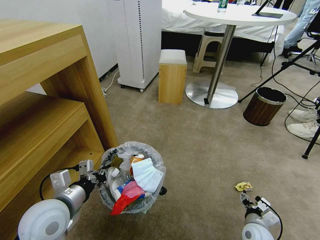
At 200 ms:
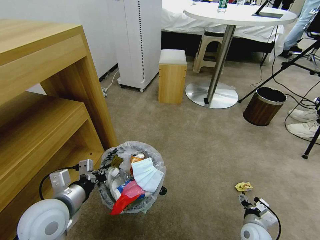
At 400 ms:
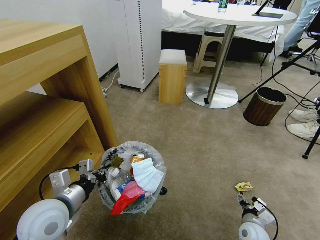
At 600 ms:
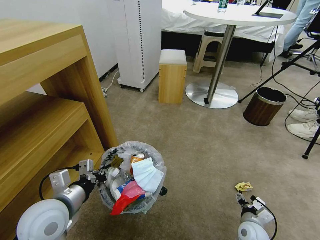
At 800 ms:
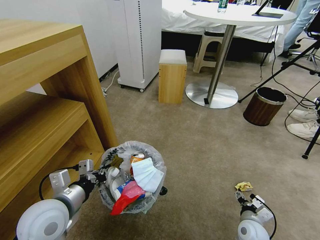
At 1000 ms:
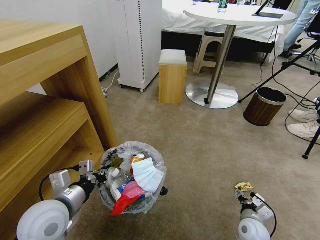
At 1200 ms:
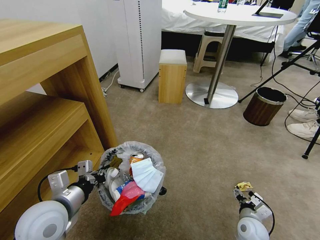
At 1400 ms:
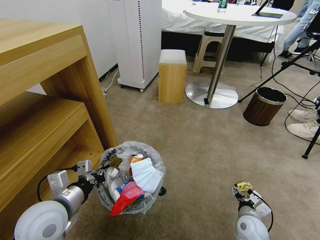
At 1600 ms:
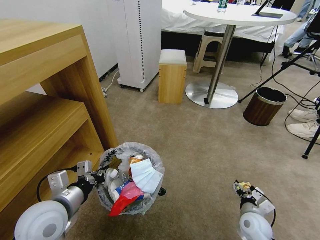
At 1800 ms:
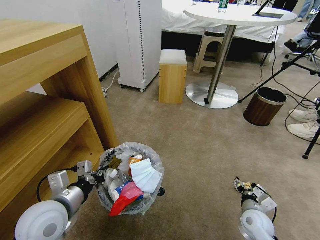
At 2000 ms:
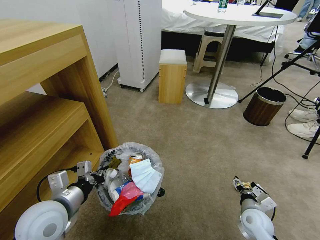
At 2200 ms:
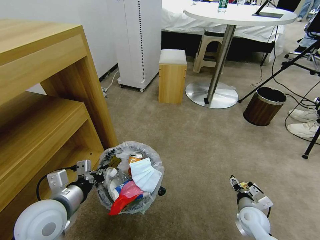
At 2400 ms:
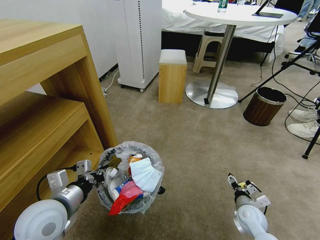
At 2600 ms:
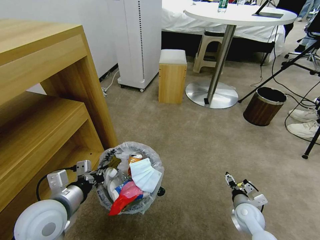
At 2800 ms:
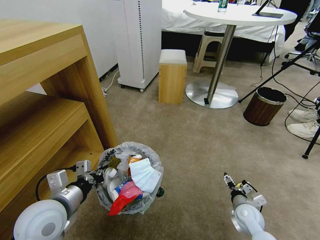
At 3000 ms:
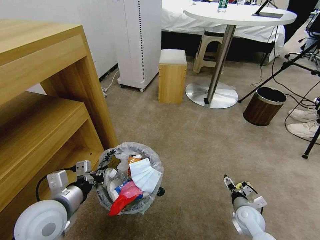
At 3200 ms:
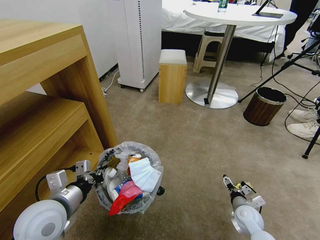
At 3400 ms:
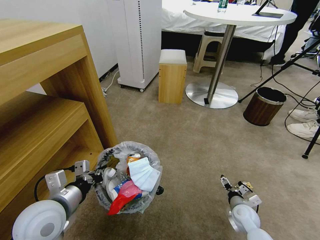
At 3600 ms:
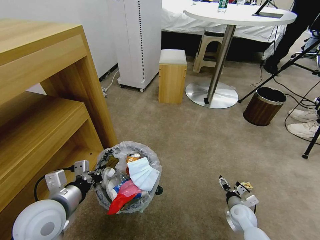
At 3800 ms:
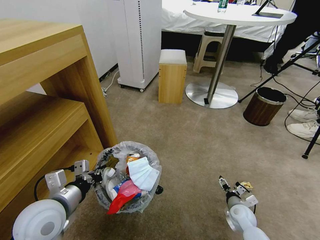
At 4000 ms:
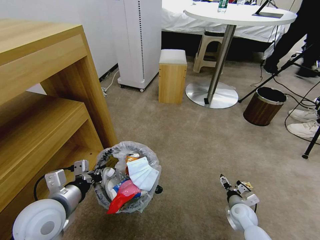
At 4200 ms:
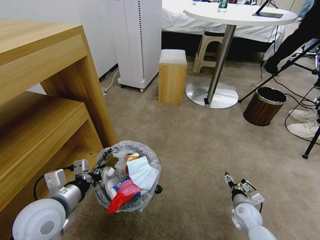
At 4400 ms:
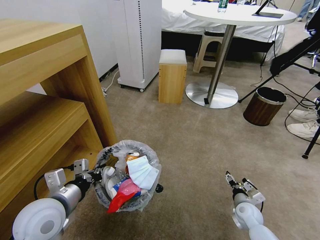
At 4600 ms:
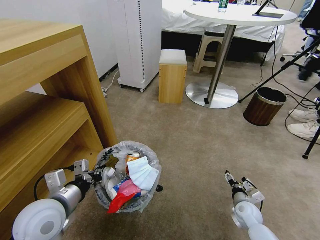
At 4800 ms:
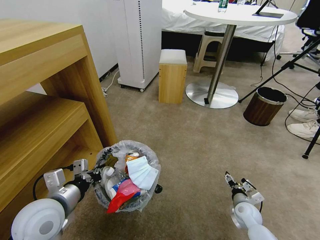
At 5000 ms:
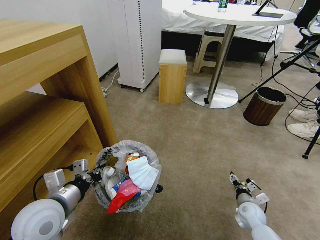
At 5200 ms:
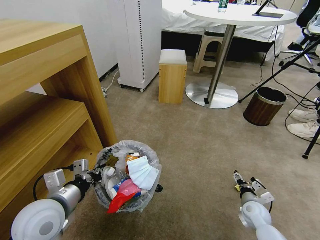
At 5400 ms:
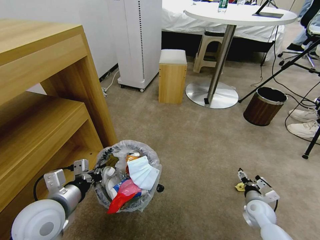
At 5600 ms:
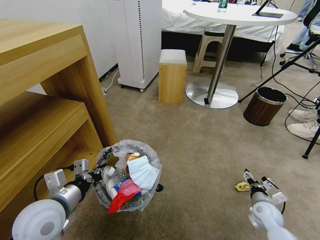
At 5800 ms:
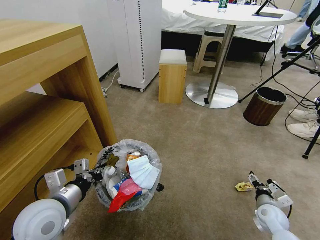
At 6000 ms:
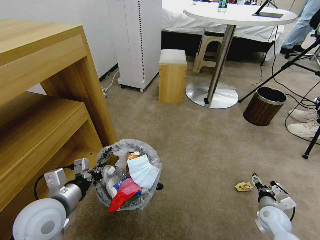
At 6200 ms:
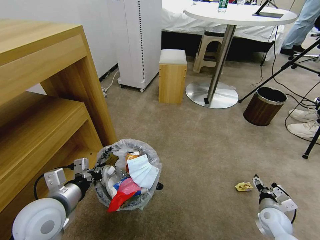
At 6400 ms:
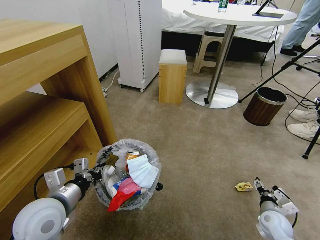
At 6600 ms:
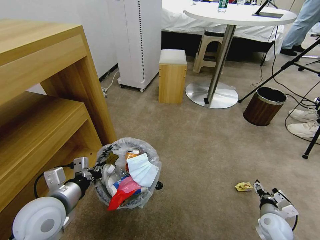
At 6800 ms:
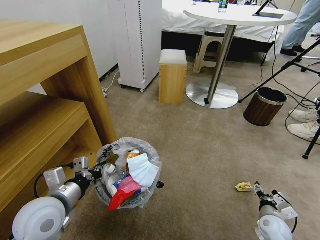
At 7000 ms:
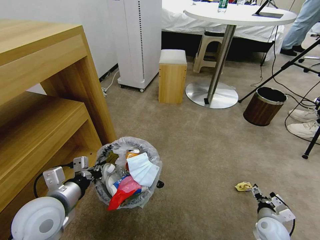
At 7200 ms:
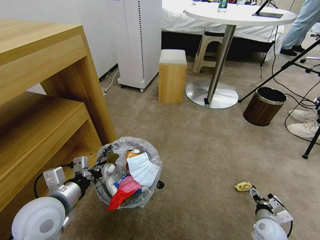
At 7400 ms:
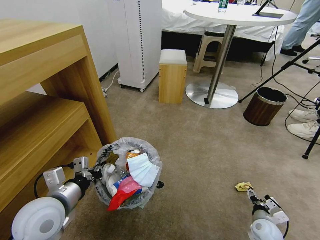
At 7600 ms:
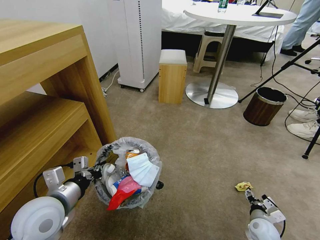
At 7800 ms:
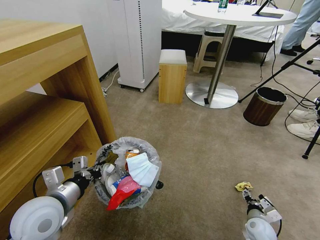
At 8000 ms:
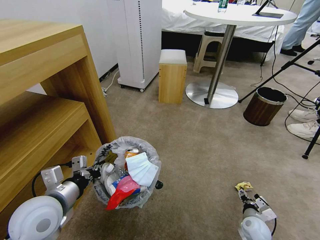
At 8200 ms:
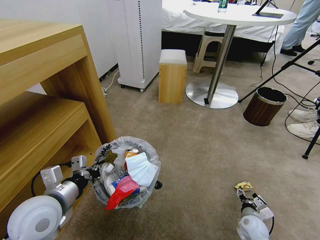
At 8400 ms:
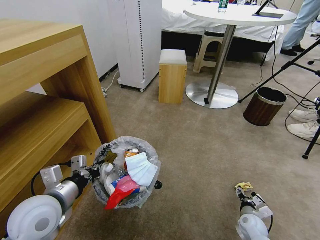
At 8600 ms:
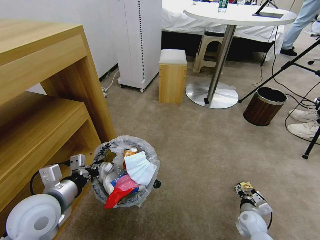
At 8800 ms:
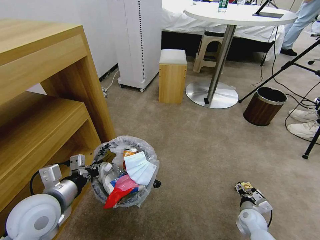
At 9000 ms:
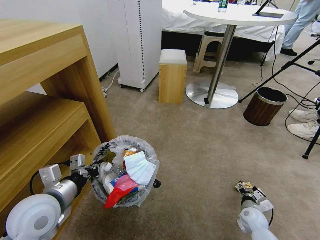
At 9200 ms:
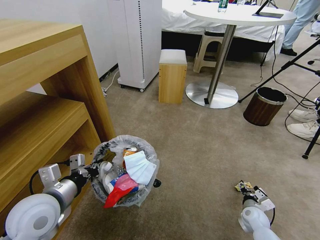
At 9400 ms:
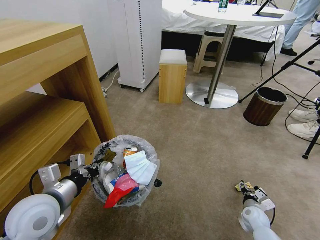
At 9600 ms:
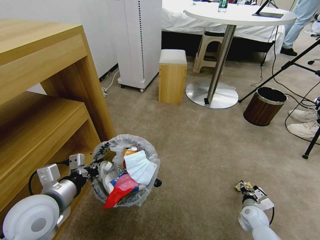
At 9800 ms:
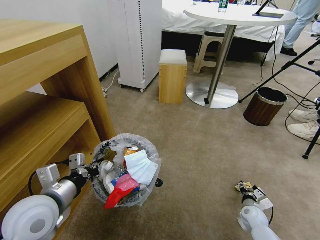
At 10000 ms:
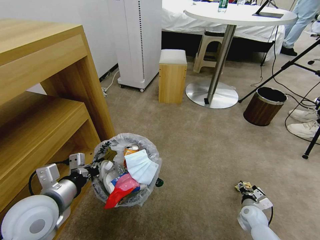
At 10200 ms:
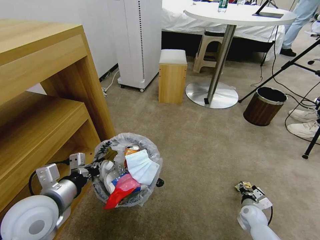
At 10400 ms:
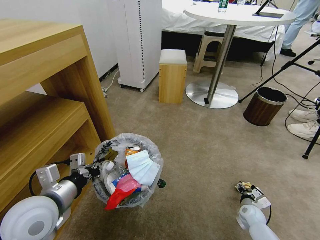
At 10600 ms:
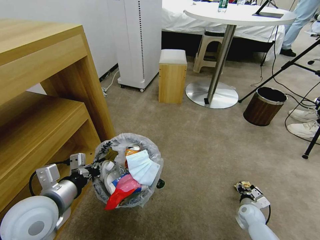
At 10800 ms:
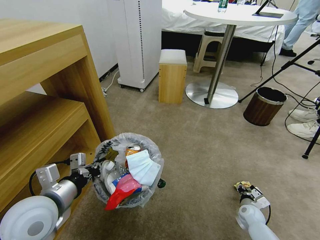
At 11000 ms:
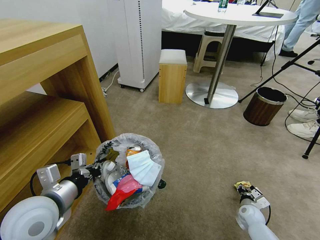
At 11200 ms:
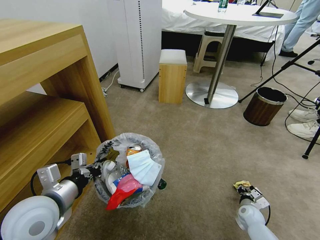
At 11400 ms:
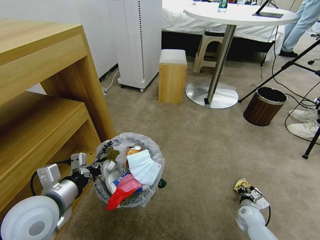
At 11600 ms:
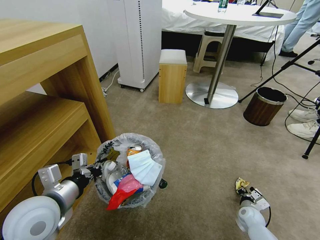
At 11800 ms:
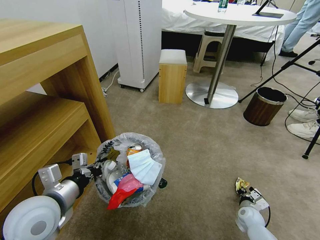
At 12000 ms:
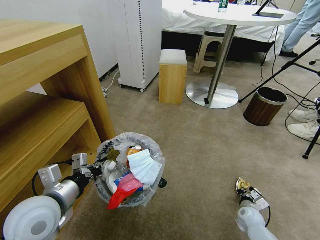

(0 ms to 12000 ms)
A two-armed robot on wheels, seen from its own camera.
Task of the whole recording: Pick up the trash bin and place the garbage on the floor into it.
0 ms - 1600 ms: The grippers move only a little.
1600 ms - 3000 ms: The grippers stay close to where they were, moving slightly.
3000 ms - 4400 ms: The grippers stay close to where they were, moving slightly.
4400 ms - 6000 ms: The right gripper heads to the right, covering approximately 5 cm.
6000 ms - 7600 ms: The right gripper ends up about 5 cm from where it was.
7600 ms - 9000 ms: The grippers stay close to where they were, moving slightly.
9000 ms - 10400 ms: The grippers make only small movements.
10400 ms - 12000 ms: The right gripper closes its fingers.

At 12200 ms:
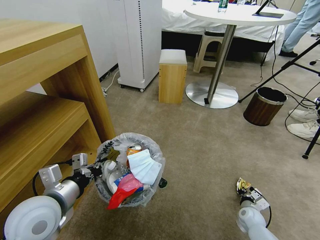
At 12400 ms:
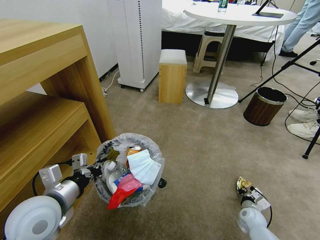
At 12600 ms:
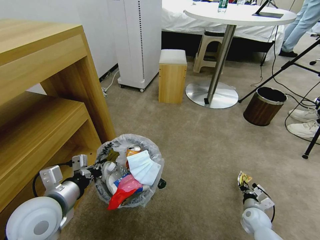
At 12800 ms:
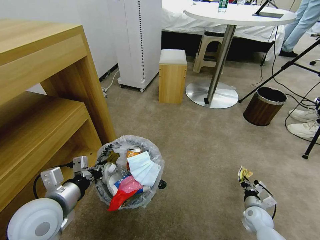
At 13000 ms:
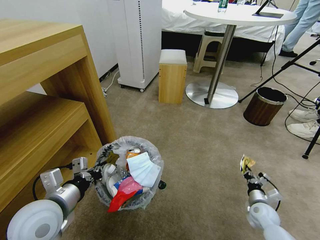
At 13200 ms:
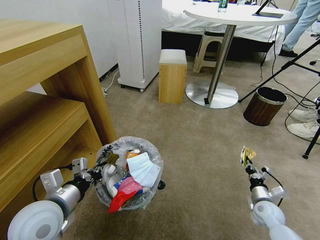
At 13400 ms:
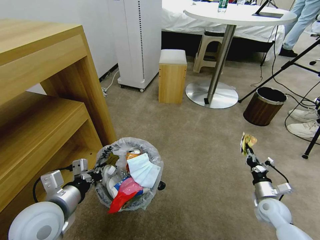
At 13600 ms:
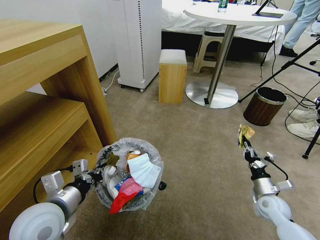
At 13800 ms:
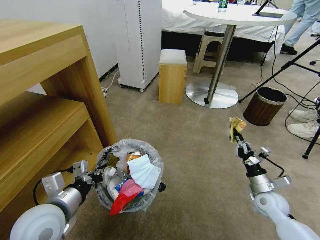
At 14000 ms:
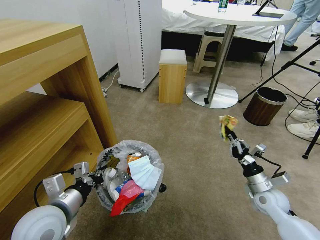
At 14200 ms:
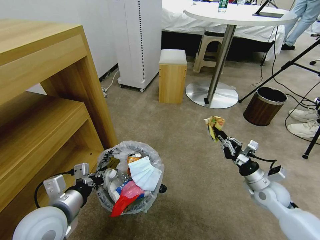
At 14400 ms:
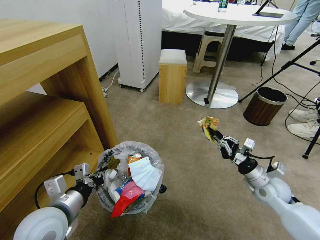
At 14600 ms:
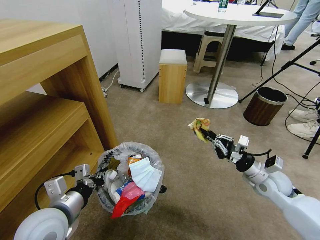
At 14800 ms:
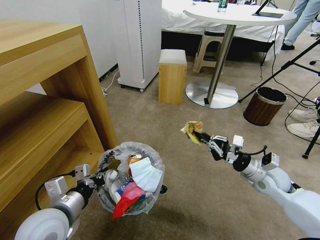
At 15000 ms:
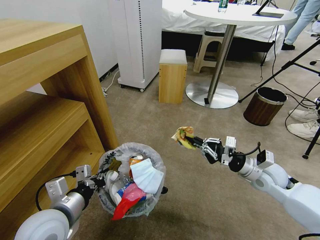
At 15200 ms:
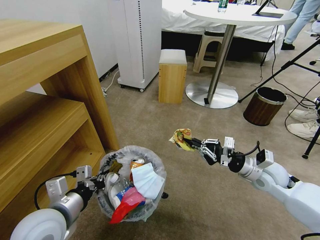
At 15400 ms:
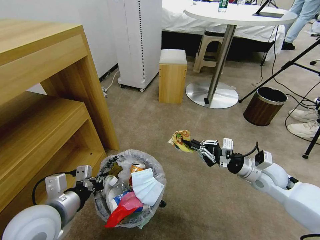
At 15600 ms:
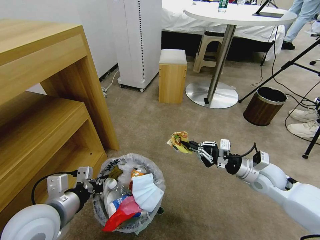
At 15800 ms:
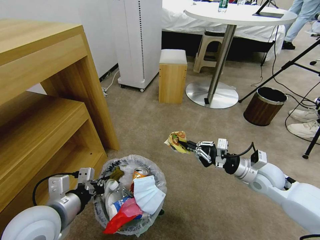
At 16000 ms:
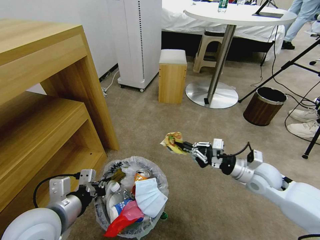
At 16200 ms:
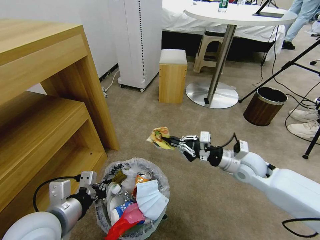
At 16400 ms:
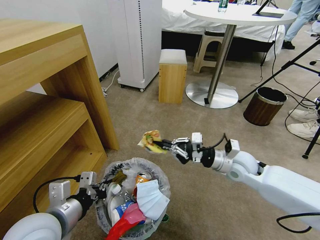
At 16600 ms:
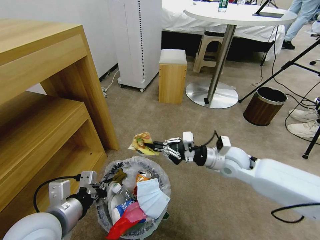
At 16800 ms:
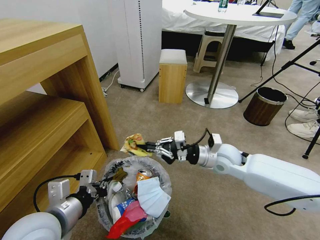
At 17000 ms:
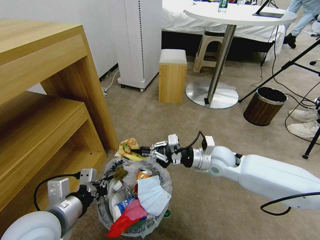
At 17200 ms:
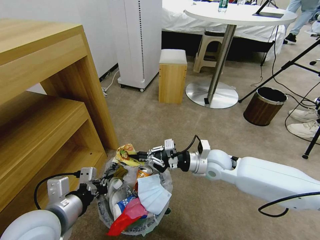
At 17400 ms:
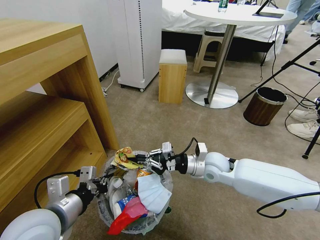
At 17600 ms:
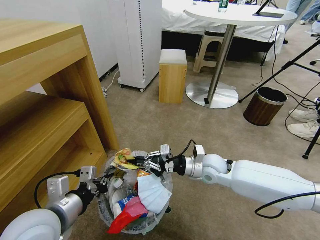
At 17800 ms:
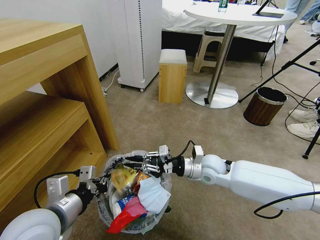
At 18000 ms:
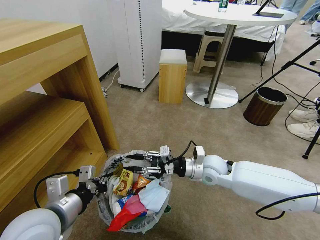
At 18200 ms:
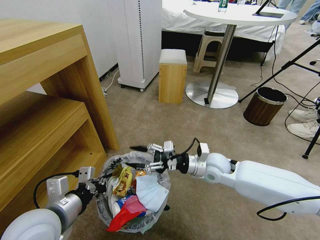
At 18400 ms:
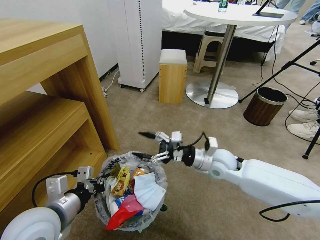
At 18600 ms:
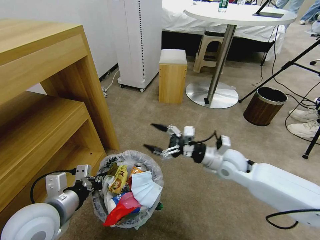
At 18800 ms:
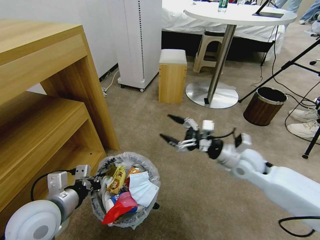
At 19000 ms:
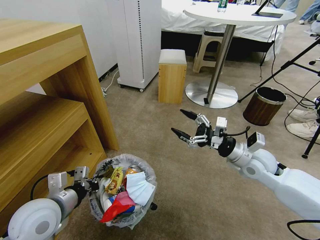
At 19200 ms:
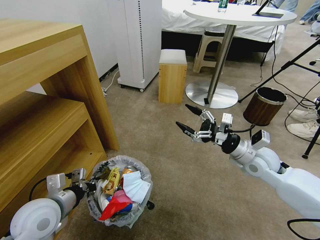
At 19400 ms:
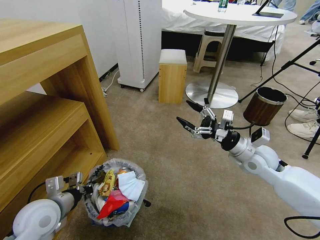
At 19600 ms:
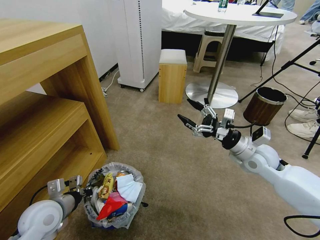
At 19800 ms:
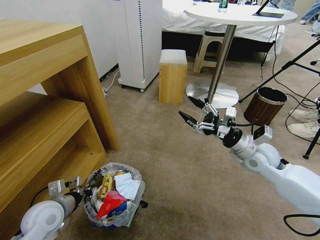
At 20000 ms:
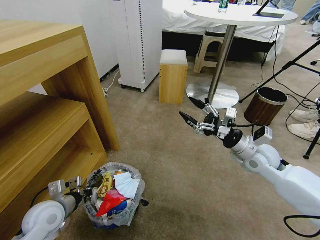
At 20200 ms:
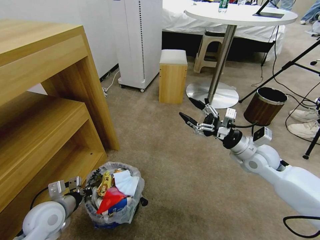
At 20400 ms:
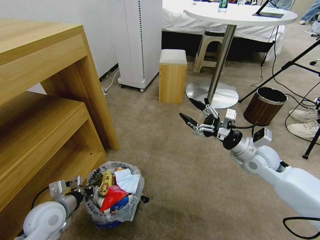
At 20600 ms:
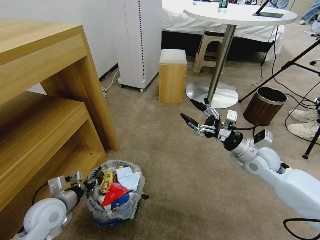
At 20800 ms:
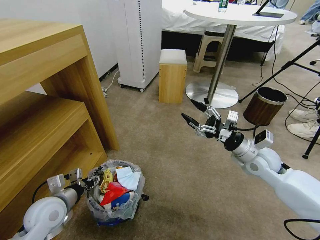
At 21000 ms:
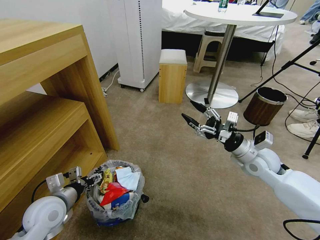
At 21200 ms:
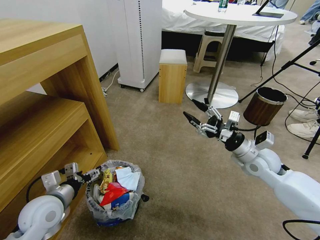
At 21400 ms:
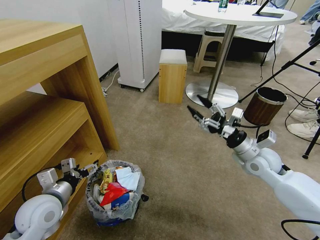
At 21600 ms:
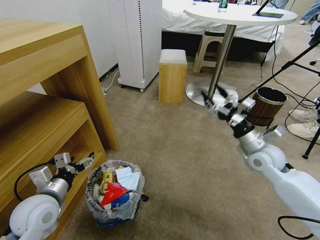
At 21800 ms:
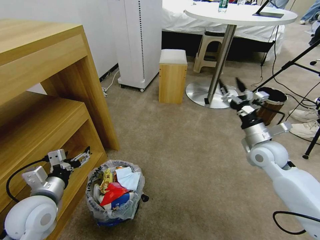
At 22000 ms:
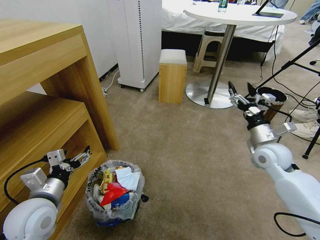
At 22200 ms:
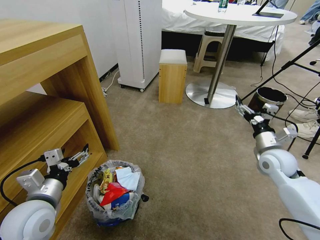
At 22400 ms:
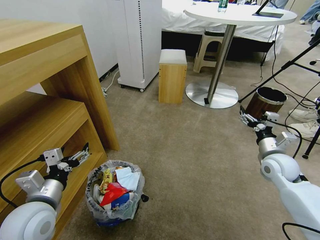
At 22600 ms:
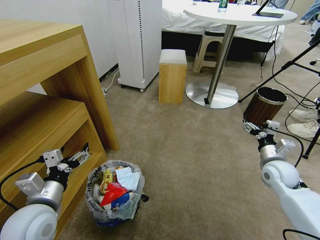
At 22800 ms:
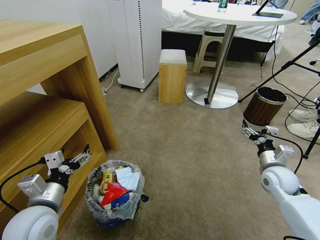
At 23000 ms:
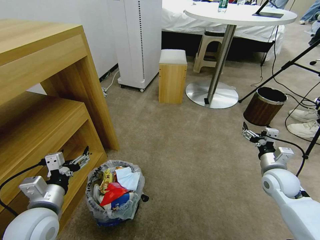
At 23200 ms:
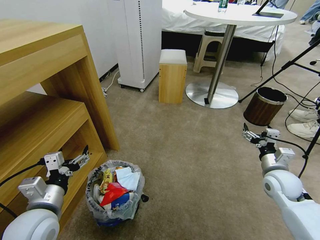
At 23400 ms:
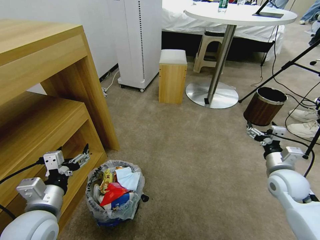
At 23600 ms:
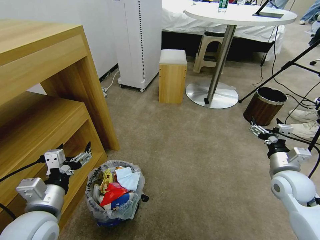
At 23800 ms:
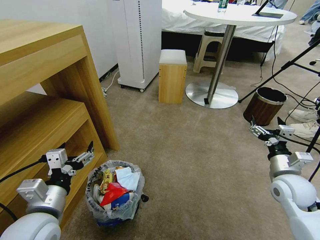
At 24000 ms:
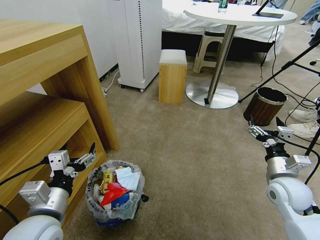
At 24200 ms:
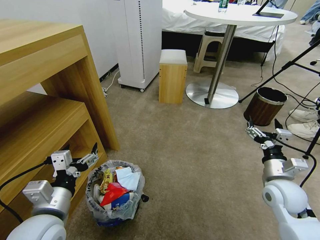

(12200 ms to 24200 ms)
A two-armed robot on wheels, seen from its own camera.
Task of the whole recording: Pick up the trash bin and place the garbage on the floor into it.
12200 ms - 13800 ms: The right gripper is displaced upward by about 15 cm.
13800 ms - 15200 ms: The right gripper shifts some 10 cm upward.
15200 ms - 16600 ms: The right gripper goes some 10 cm to the left.
16600 ms - 18200 ms: The right gripper goes some 5 cm to the left, and opens up.
18200 ms - 19800 ms: The left gripper moves downward, to the left and forward, some 15 cm, while the right gripper goes roughly 15 cm to the right and upward.
19800 ms - 21200 ms: The left gripper opens its fingers.
21200 ms - 22600 ms: The right gripper is displaced to the right and downward by about 10 cm, while the left gripper ends up about 5 cm from where it was.
22600 ms - 24200 ms: The left gripper changes place by some 5 cm. Meanwhile the right gripper is displaced backward by roughly 10 cm.
